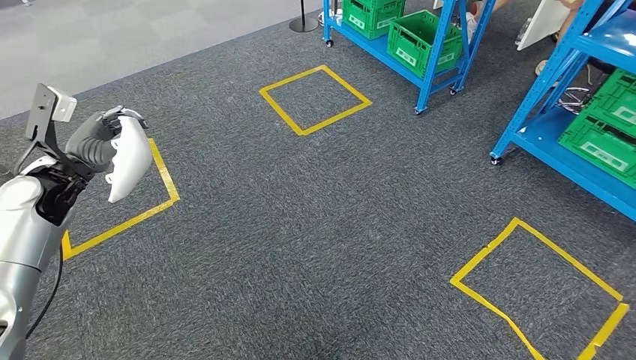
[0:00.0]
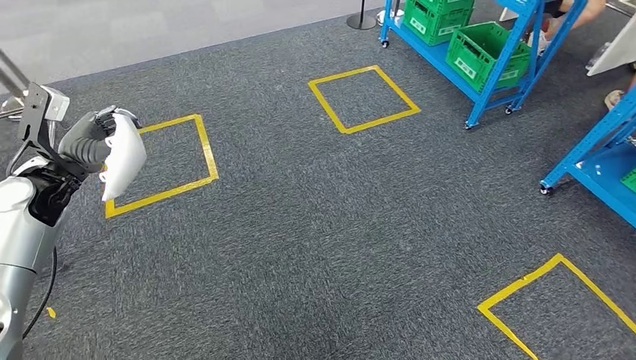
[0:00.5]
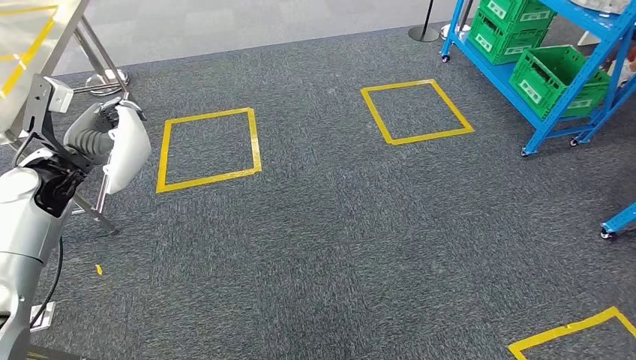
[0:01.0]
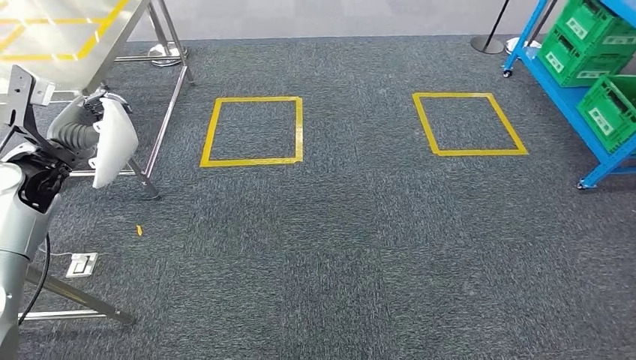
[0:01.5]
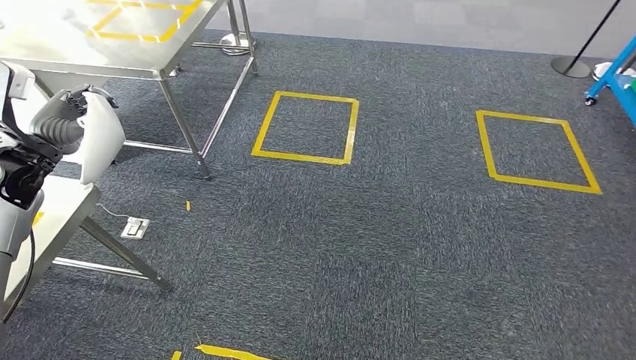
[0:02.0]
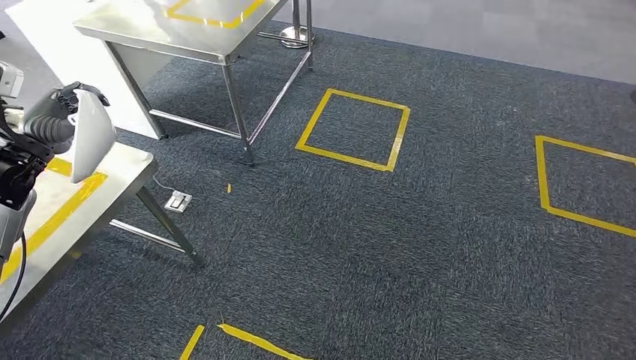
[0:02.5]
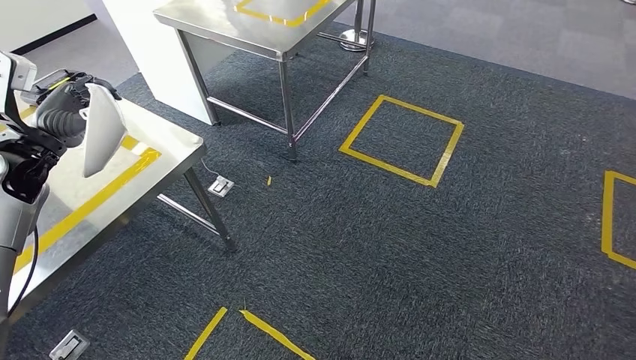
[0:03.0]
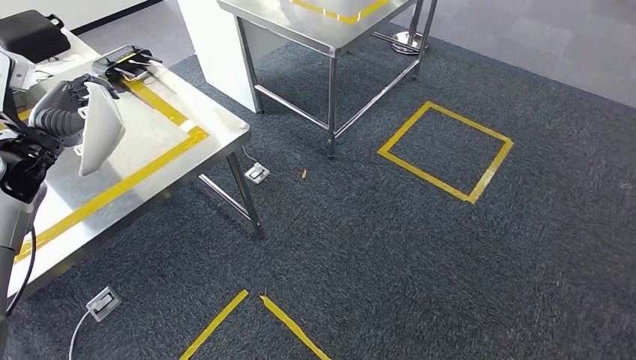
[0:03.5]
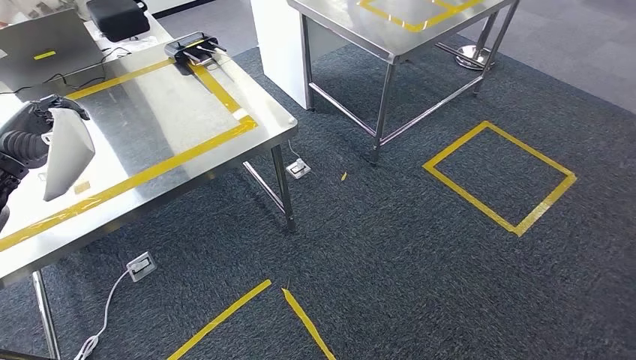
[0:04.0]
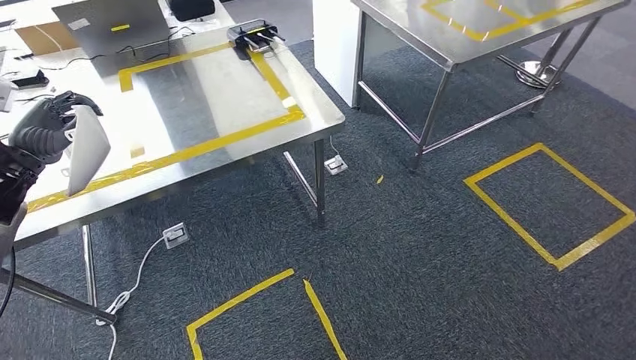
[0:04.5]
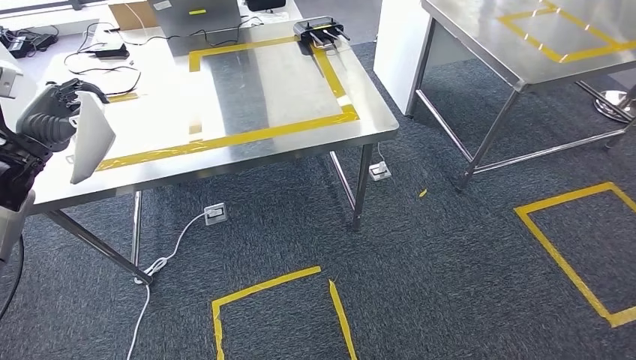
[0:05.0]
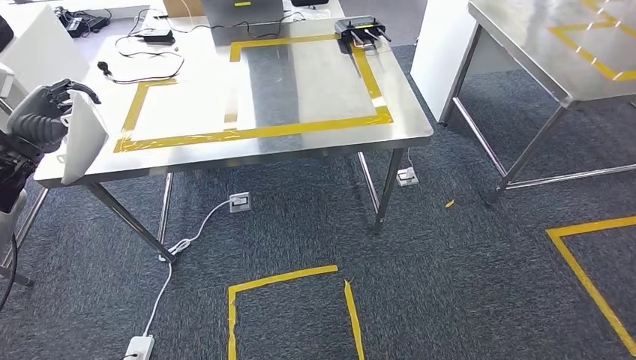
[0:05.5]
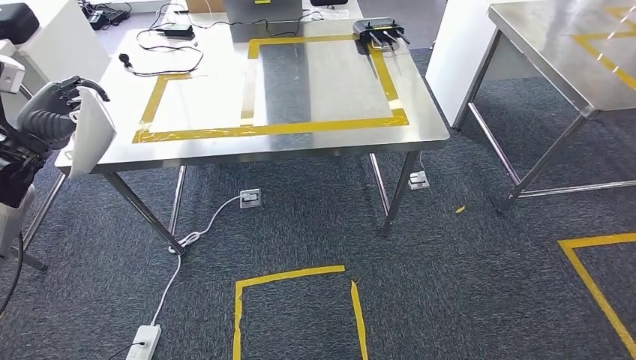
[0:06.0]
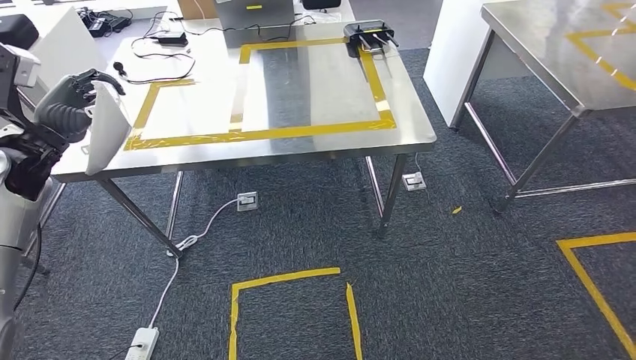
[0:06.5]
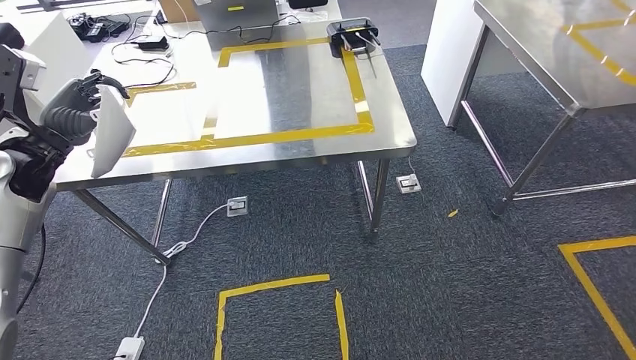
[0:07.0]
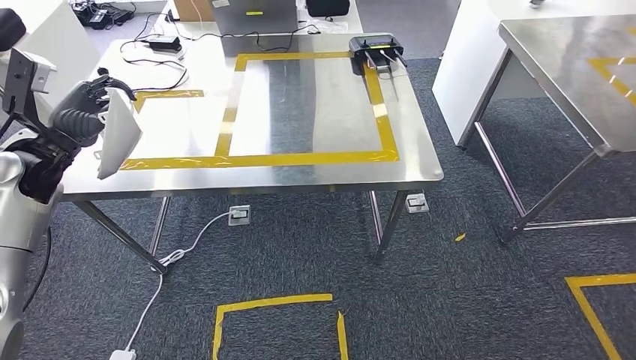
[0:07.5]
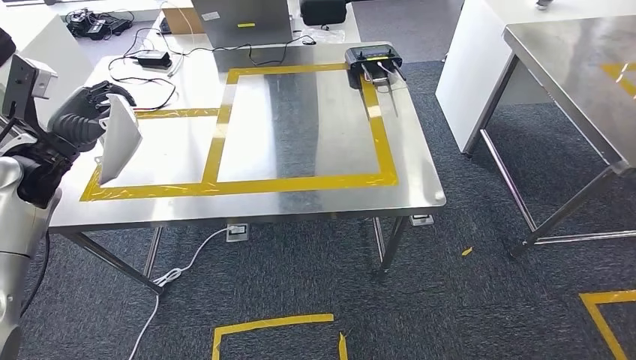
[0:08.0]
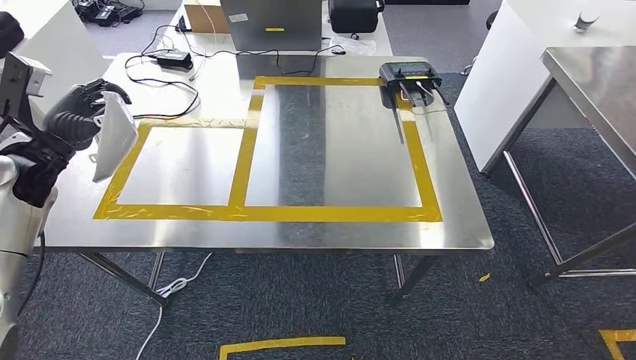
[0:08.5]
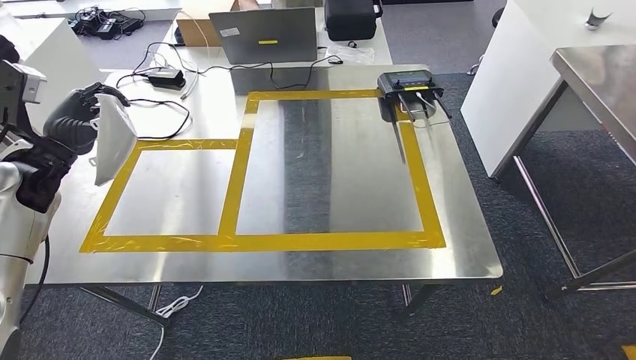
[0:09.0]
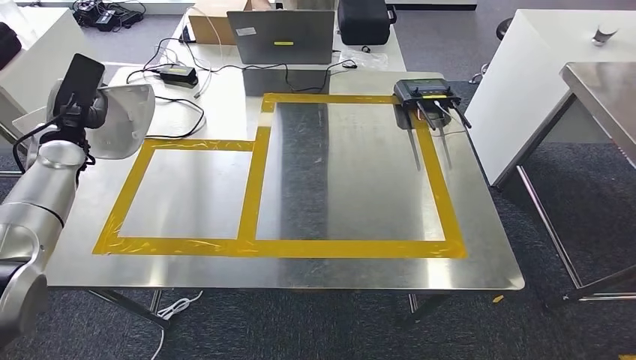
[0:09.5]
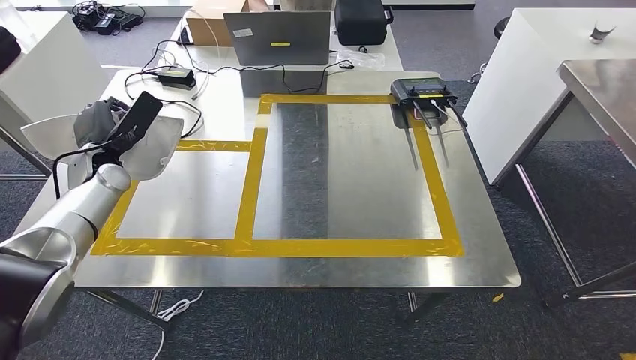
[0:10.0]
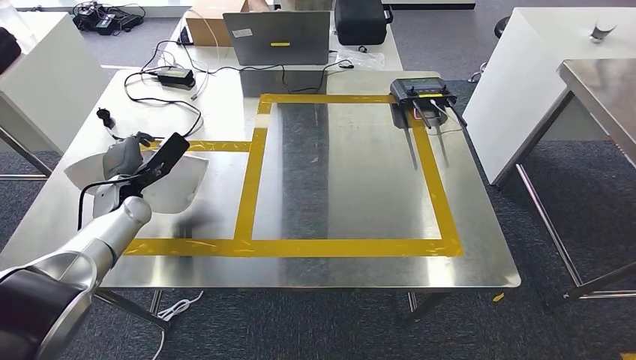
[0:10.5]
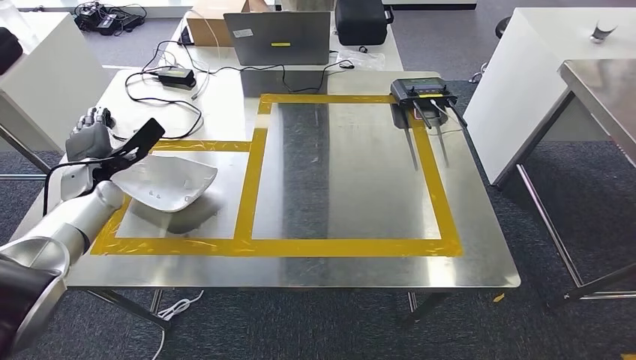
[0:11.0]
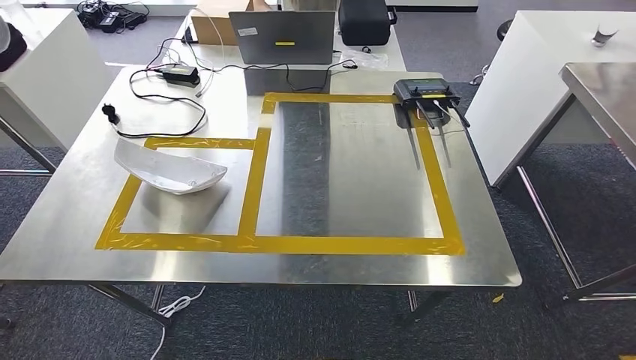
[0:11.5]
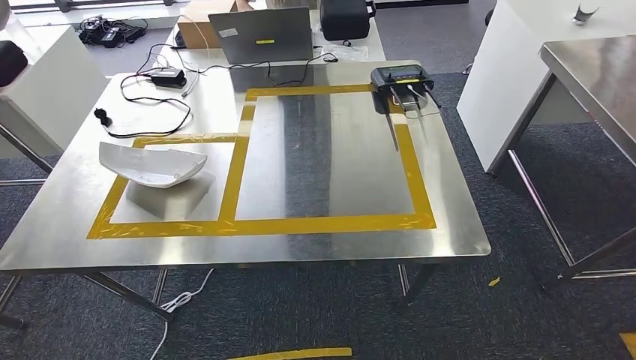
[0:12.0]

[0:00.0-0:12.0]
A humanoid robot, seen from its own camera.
Step, 0:00.0 to 0:05.0: Move the small component to the workbench.
Step, 0:06.0 to 0:11.0: Insert the small component into the corresponding slot on the workbench.

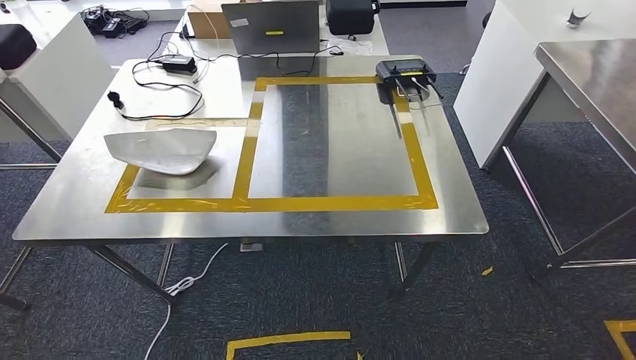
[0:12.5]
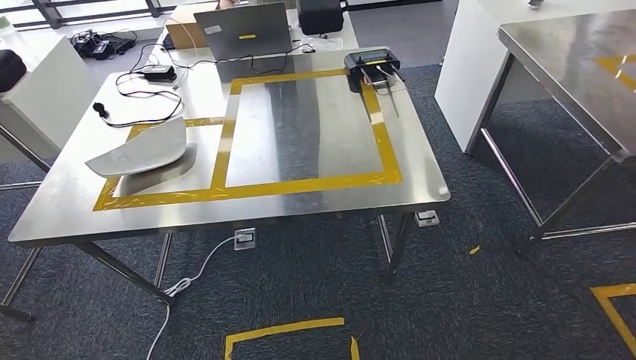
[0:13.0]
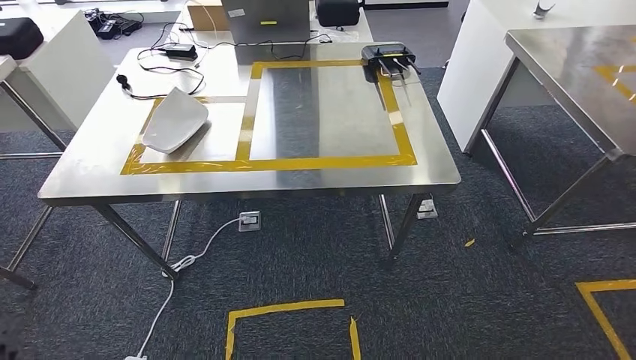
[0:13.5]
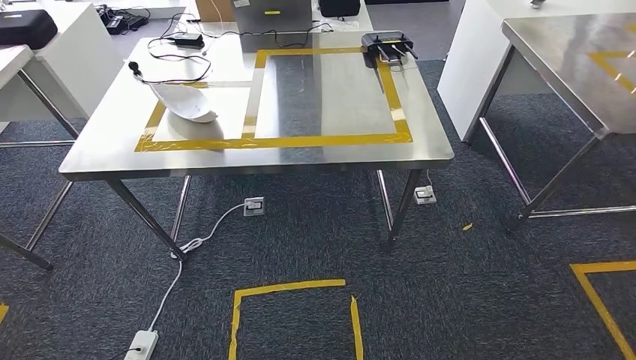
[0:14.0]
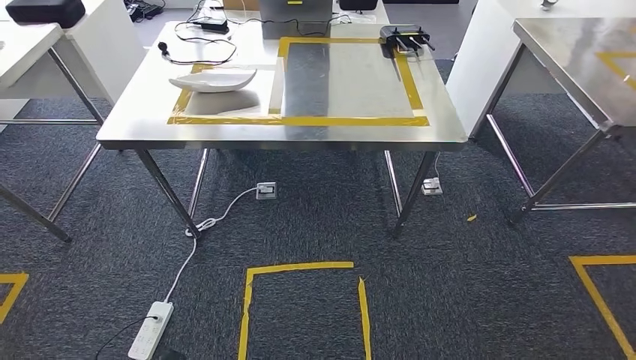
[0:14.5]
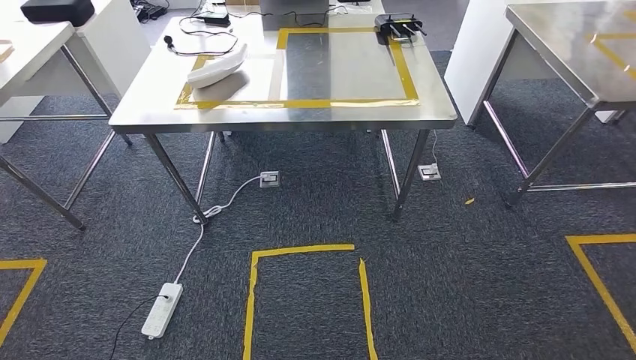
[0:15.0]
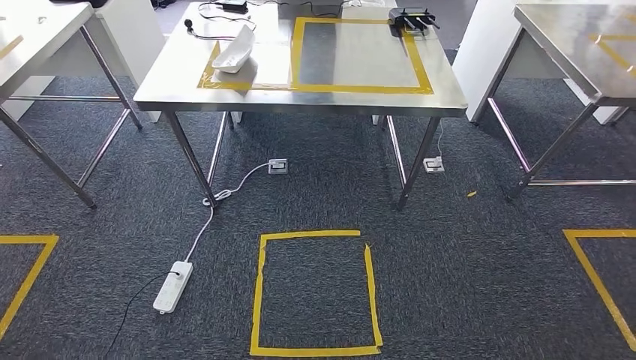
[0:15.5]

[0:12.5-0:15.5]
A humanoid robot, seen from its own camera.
Step, 0:12.5 to 0:15.5: Return to the initial position at the workbench.
